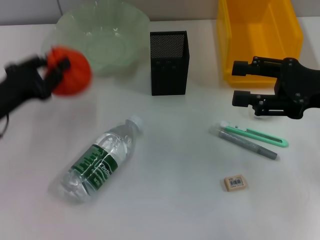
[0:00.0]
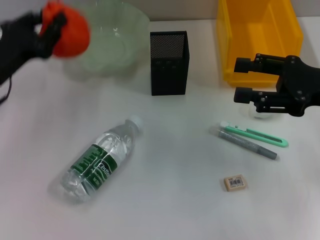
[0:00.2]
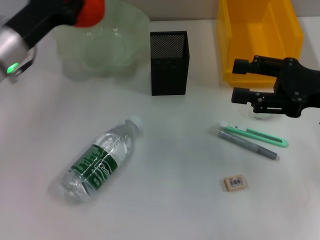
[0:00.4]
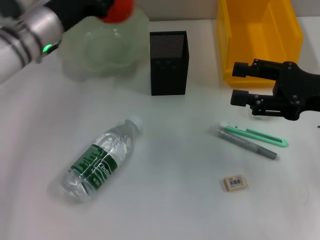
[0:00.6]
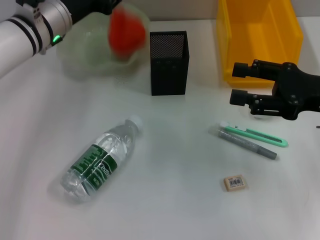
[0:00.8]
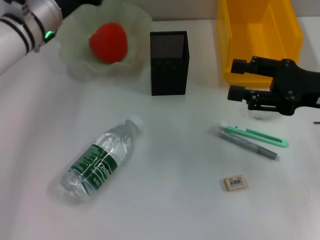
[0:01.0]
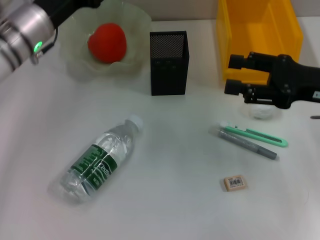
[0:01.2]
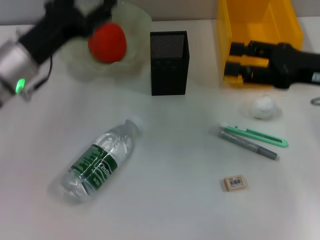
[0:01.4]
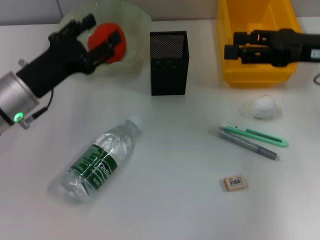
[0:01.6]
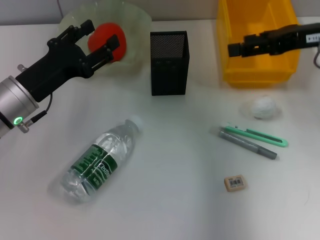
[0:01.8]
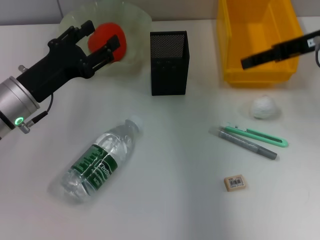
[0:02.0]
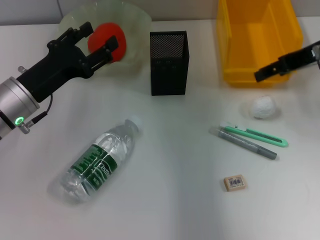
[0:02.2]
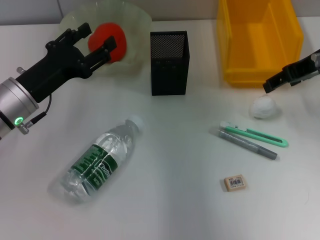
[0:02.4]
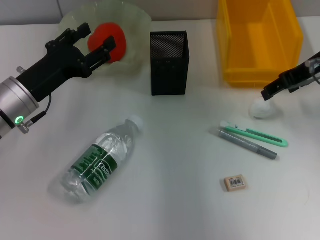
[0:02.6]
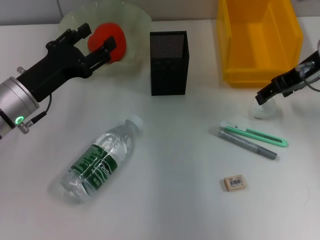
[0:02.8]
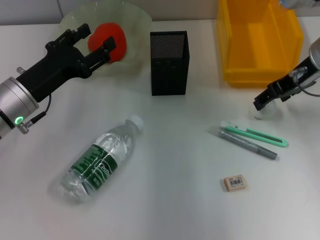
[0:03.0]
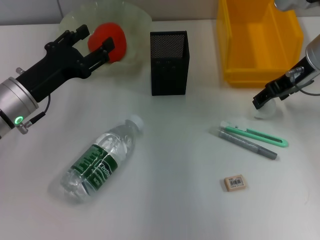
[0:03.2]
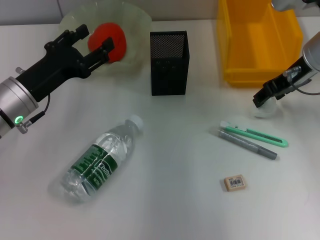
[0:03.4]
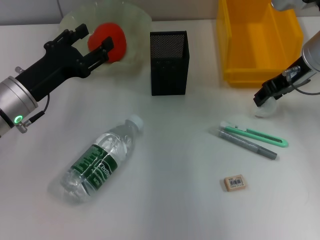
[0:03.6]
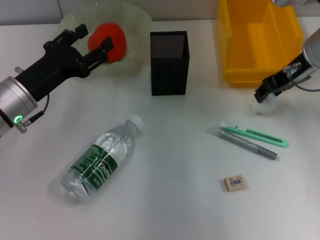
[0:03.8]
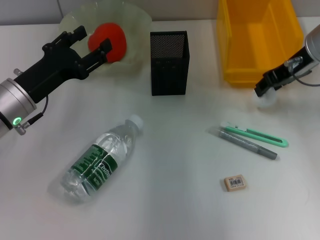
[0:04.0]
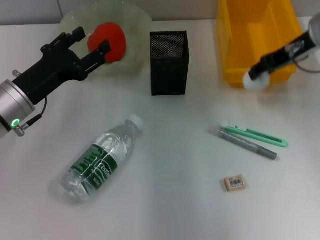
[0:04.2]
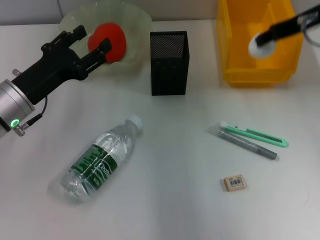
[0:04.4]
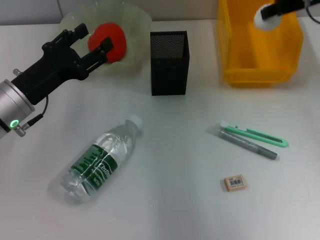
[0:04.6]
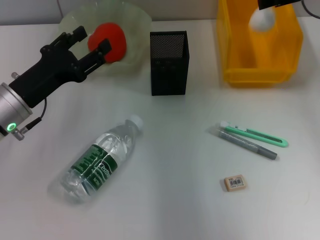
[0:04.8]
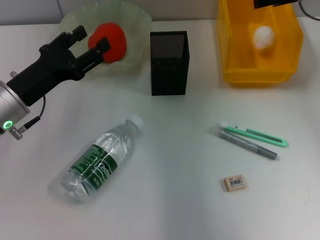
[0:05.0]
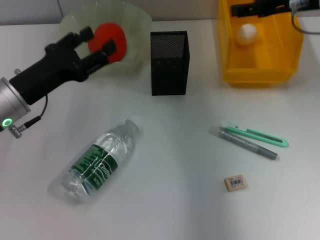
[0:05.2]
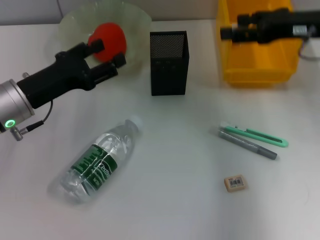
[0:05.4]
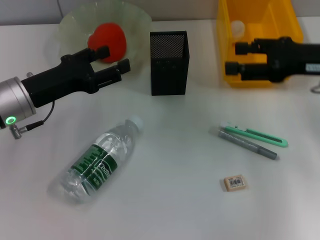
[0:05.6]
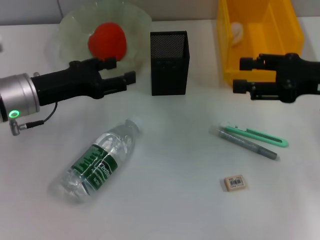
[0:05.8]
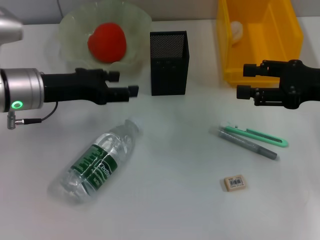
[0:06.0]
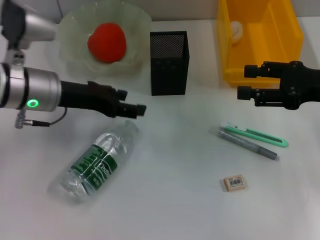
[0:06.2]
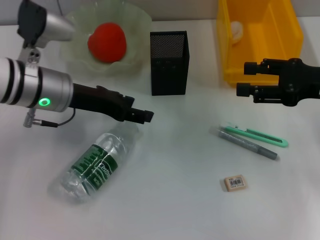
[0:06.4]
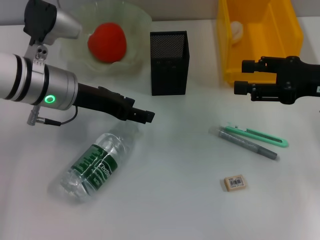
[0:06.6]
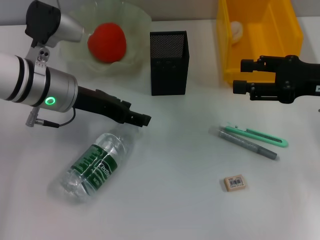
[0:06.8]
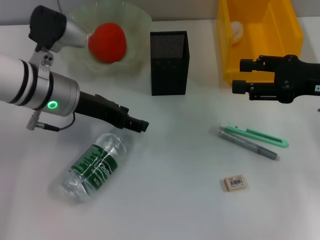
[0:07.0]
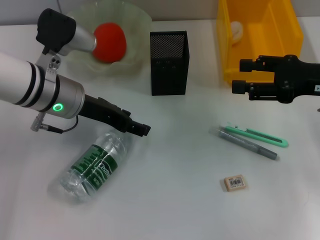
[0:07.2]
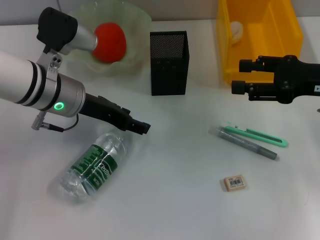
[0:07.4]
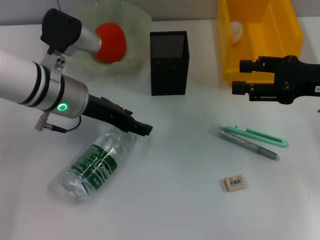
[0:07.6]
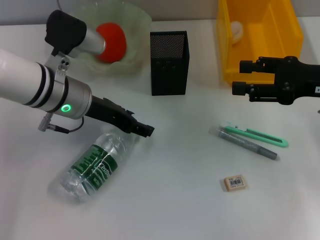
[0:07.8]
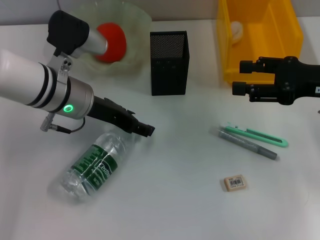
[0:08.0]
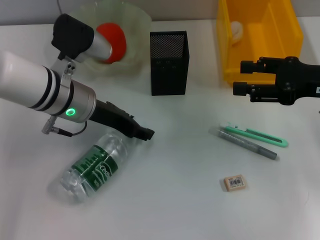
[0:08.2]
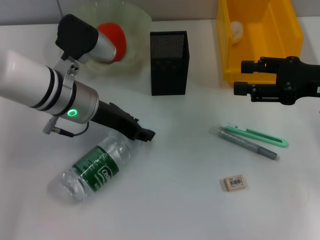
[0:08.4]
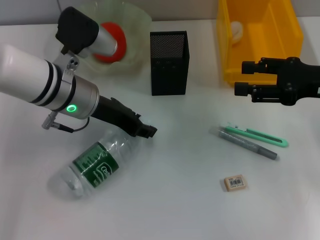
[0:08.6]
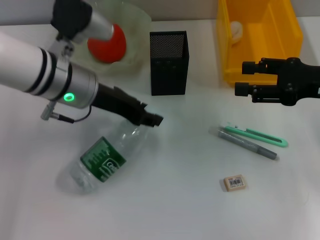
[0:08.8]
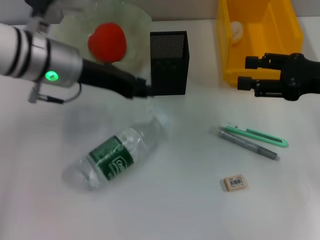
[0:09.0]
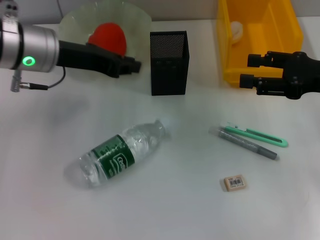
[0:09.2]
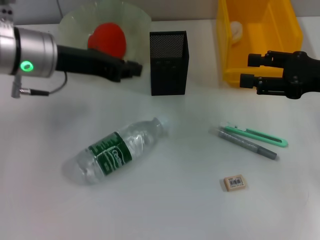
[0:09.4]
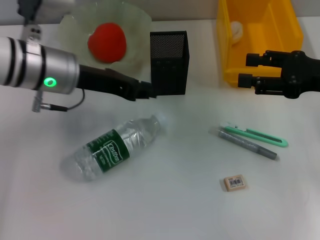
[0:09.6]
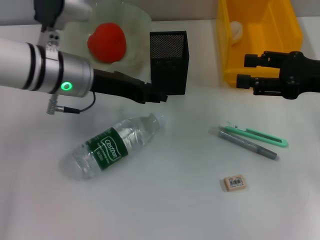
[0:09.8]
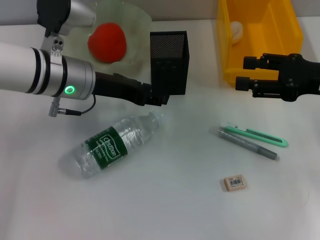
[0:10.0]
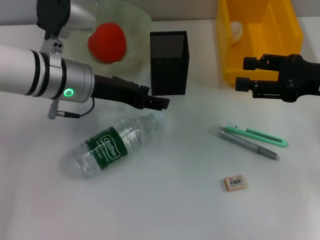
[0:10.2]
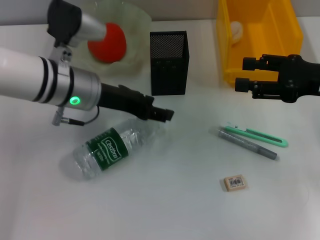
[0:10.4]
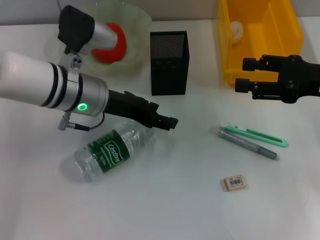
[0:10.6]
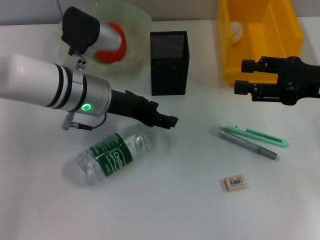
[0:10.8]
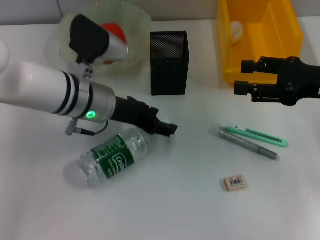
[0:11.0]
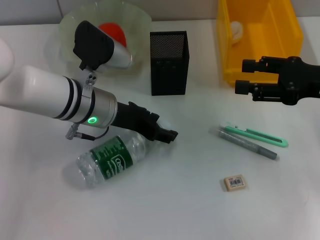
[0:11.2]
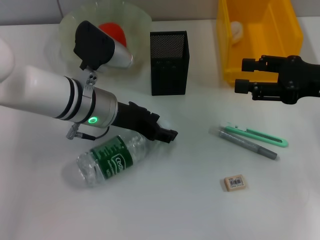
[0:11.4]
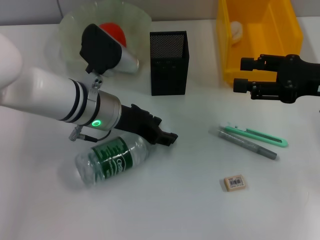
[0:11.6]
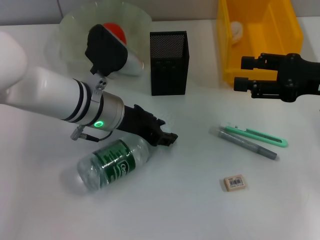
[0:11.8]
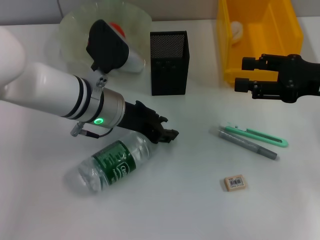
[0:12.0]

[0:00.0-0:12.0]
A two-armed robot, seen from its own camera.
Step, 0.0 to 1.6 s: Place the orange into the fruit bowl with the left hand.
Step, 1.8 to 3.6 s: Grab the paper ball with the right hand.
Step, 3.8 to 5.6 s: Place the paper ball into the trash can with the right hand.
0.0 to 1.6 s: The left gripper shifts about 5 cm to the right, goes forward and returns, some 15 cm each way, and opens its fingers, while the right gripper shifts by some 5 cm.
1.6 to 3.0 s: The right gripper heads forward, covering approximately 5 cm.
3.0 to 4.4 s: The right gripper travels upward by about 5 cm, and closes its fingers.
4.4 to 6.0 s: The right gripper is displaced backward, downward and to the right by approximately 15 cm, and opens. Meanwhile the left gripper moves roughly 5 cm.
6.0 to 7.6 s: The left gripper moves to the right, approximately 5 cm.
7.6 to 9.0 s: The left gripper closes.
9.0 to 10.4 s: The left gripper opens up.
10.4 to 12.0 s: The left gripper closes.

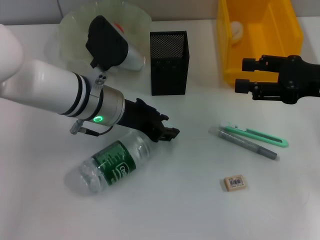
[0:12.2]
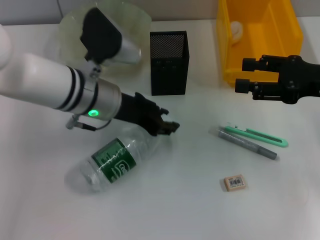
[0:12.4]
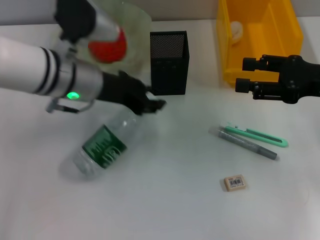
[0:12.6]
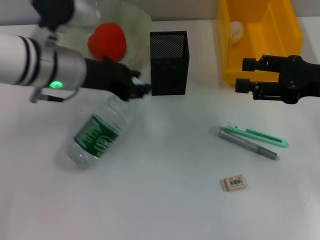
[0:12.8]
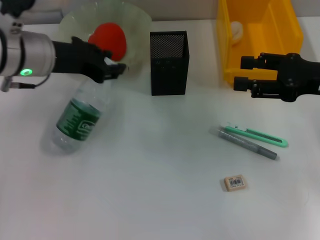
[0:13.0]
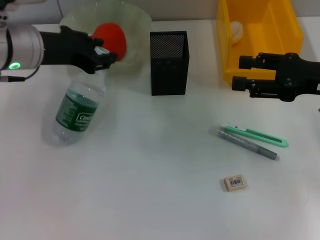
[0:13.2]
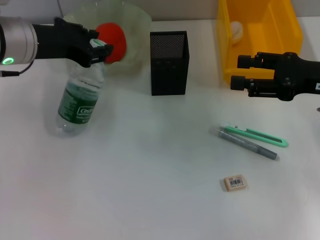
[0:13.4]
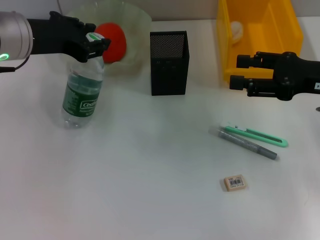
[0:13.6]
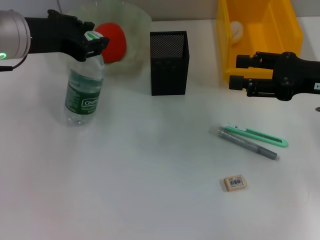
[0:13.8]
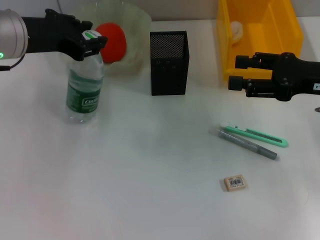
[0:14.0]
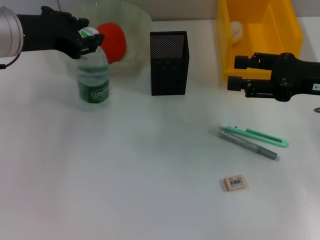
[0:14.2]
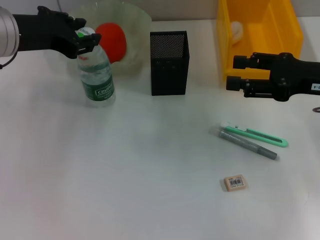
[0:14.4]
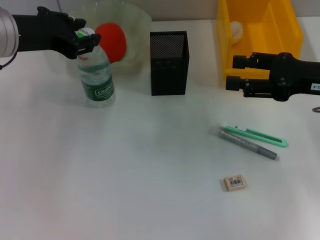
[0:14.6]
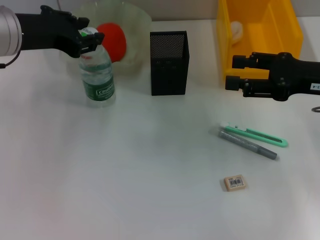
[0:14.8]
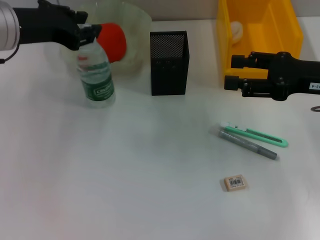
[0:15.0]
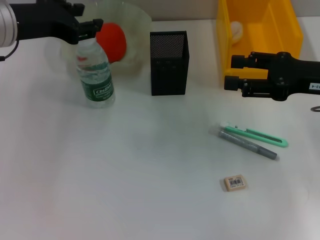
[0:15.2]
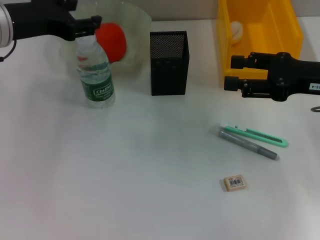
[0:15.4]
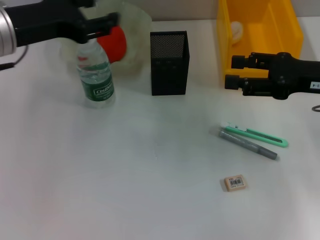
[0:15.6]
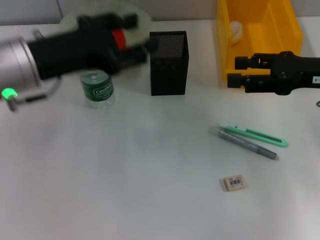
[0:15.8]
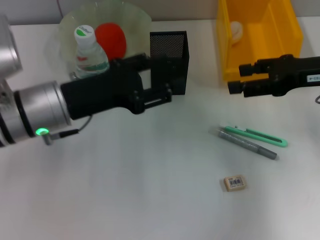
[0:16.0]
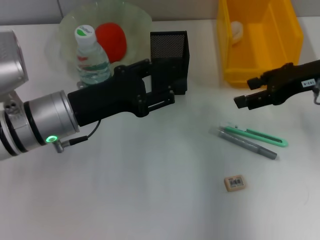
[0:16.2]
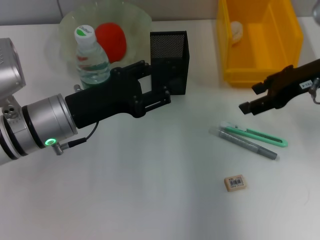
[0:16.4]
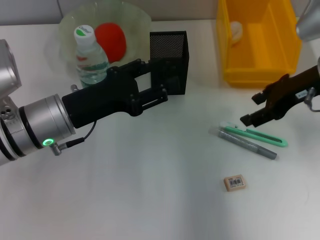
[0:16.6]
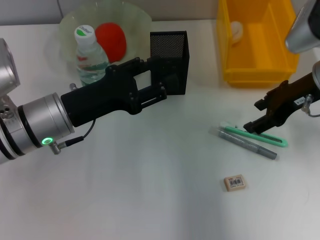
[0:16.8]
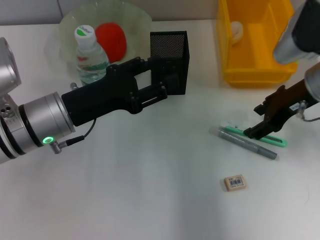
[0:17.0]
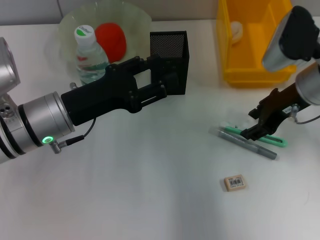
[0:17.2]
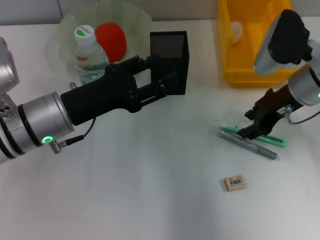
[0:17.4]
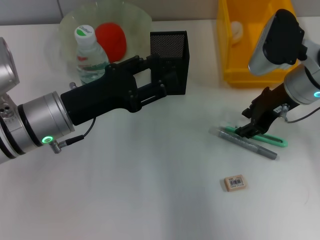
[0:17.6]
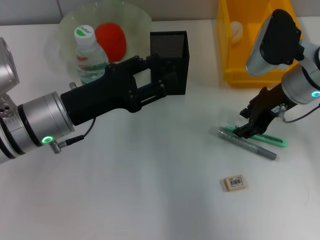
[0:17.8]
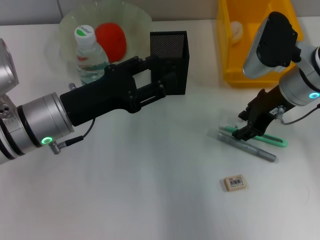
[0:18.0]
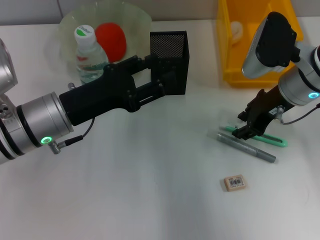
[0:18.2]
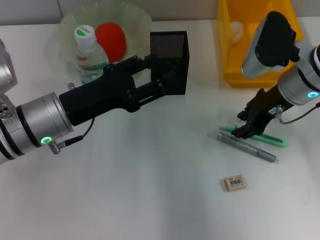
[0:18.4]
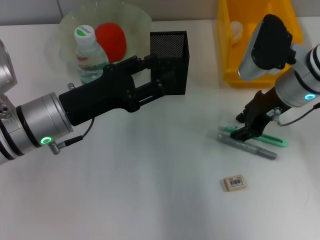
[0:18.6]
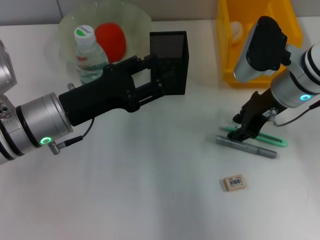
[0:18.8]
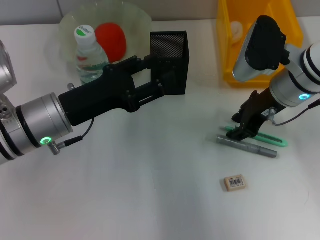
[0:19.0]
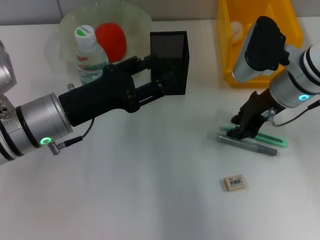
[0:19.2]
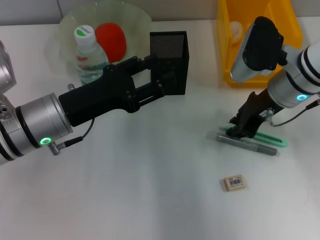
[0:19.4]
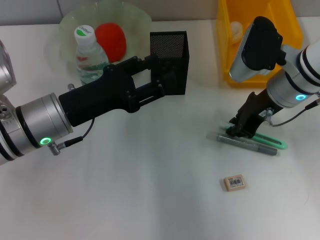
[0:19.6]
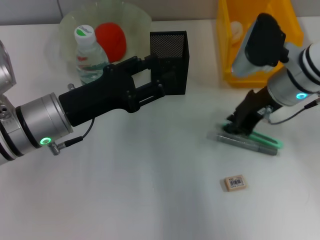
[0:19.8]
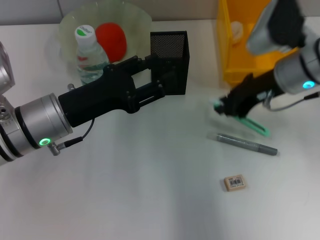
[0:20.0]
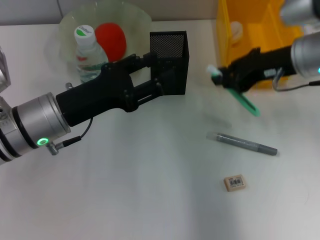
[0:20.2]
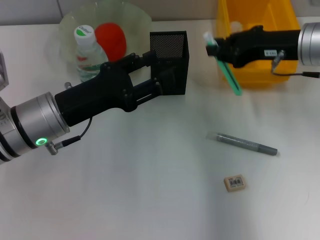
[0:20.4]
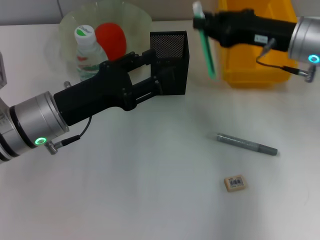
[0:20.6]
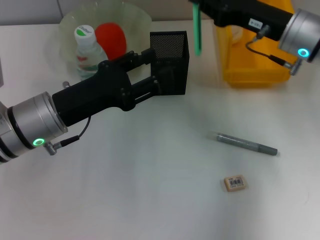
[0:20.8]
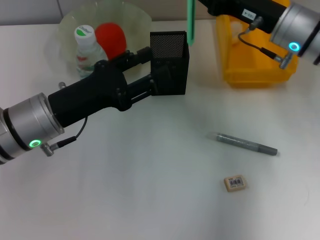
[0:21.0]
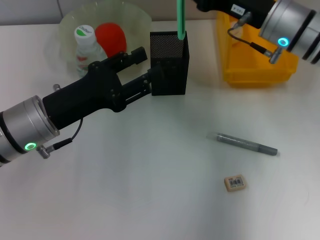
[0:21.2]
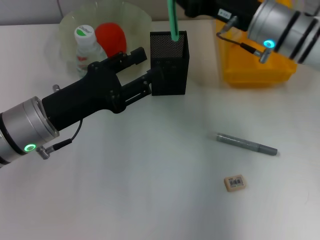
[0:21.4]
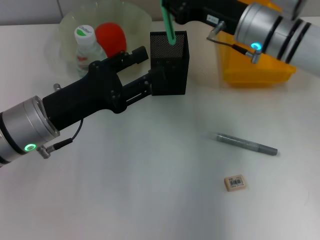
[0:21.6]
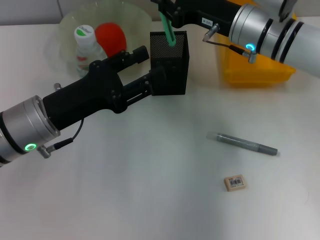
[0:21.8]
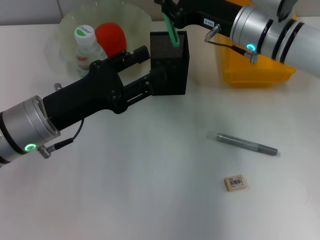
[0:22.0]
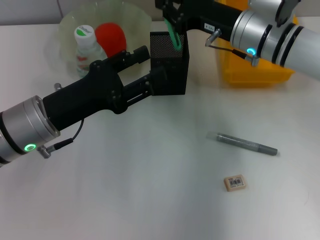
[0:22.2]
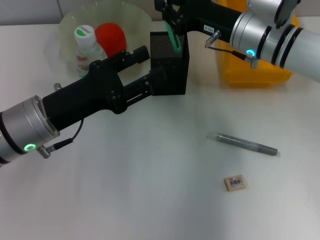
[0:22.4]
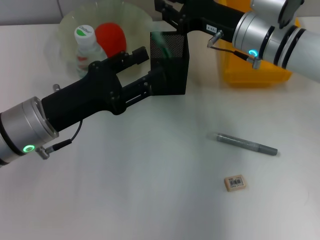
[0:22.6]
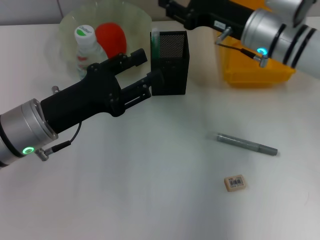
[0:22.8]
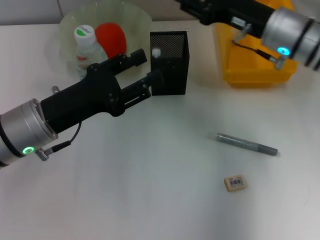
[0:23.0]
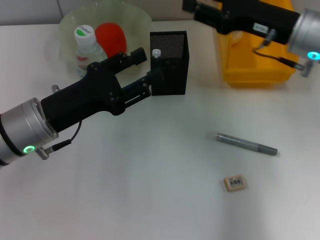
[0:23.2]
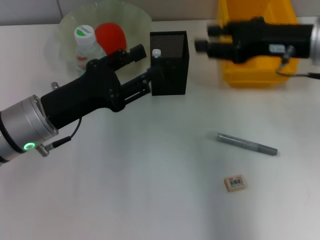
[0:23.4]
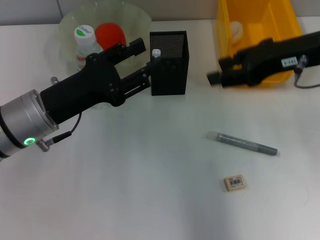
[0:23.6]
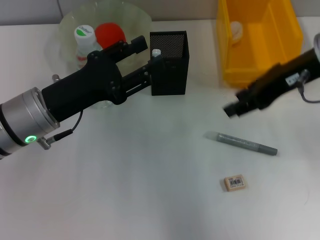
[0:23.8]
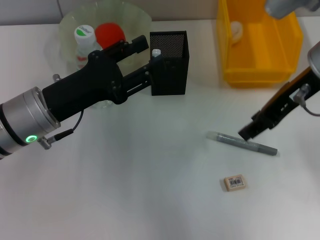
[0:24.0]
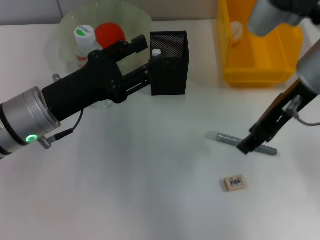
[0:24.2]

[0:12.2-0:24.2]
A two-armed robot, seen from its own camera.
Step, 12.4 to 15.6 s: Place the water bottle on the table with the left hand.
Step, 15.8 to 19.6 s: Grab the blue utility knife with the right hand.
Step, 19.8 to 23.4 s: Place the blue utility knife into the pen holder with the right hand.
12.2 to 13.8 s: The left gripper moves upward and to the left, some 15 cm.
13.8 to 15.2 s: The grippers move only a little.
15.2 to 16.6 s: The left gripper goes some 15 cm downward and backward, and opens its fingers. The right gripper shifts by approximately 5 cm.
16.6 to 18.2 s: The right gripper moves some 5 cm.
18.2 to 19.8 s: The right gripper closes its fingers.
21.2 to 22.6 s: The grippers stay close to where they were, moving slightly.
22.6 to 24.2 s: The right gripper goes some 10 cm upward and backward, and opens its fingers.
